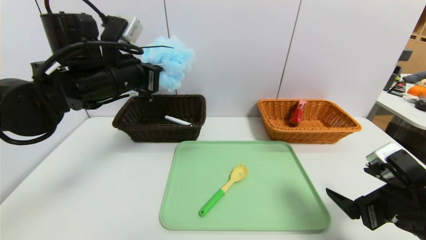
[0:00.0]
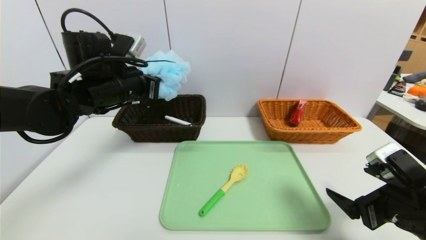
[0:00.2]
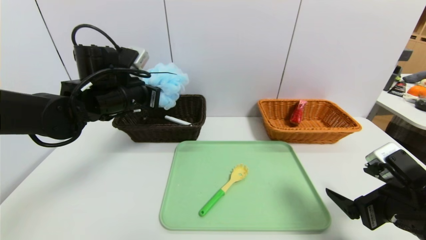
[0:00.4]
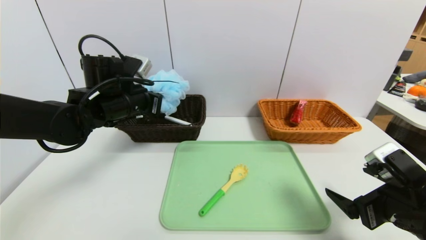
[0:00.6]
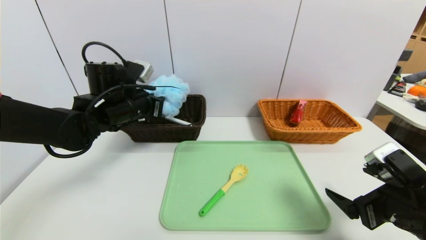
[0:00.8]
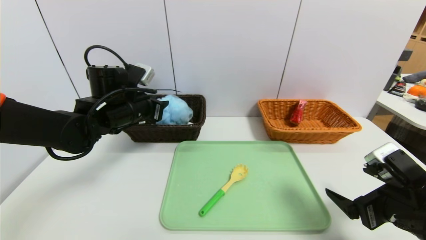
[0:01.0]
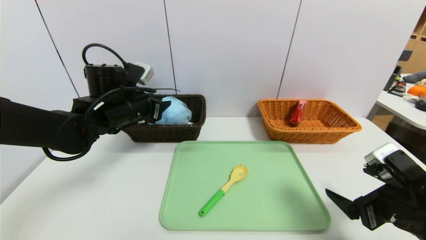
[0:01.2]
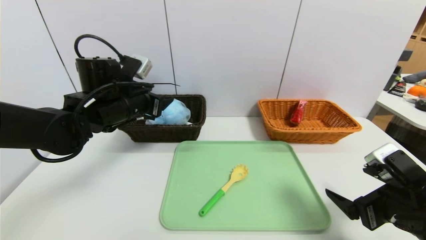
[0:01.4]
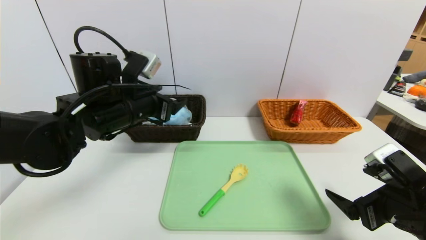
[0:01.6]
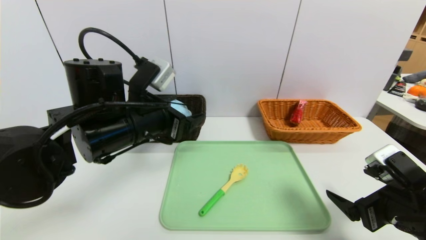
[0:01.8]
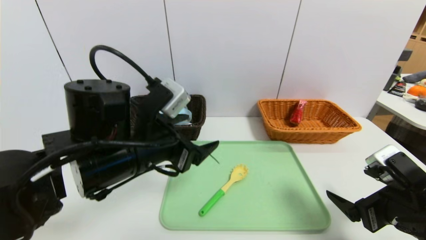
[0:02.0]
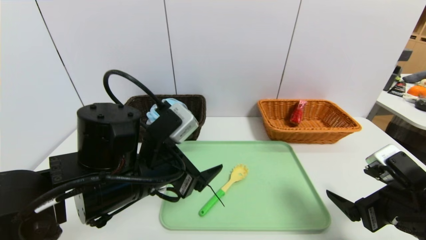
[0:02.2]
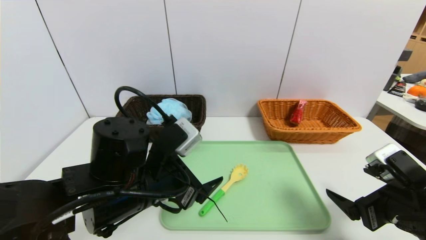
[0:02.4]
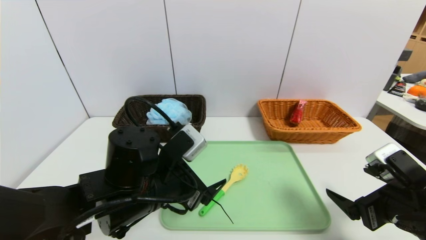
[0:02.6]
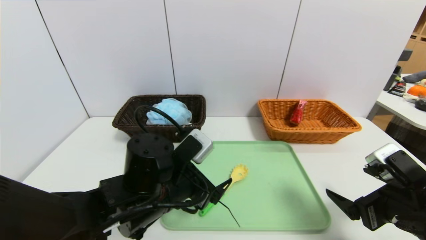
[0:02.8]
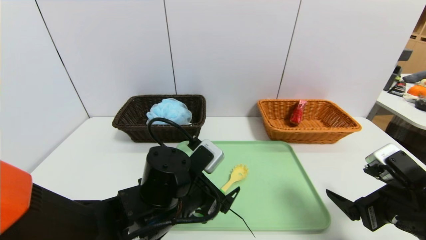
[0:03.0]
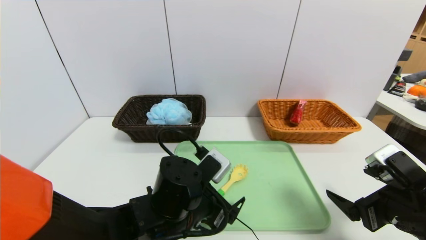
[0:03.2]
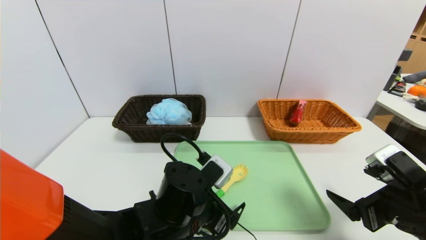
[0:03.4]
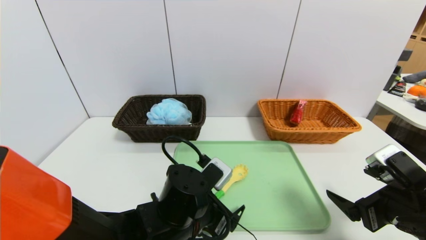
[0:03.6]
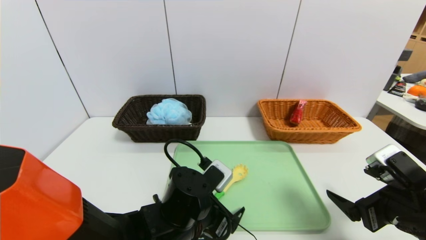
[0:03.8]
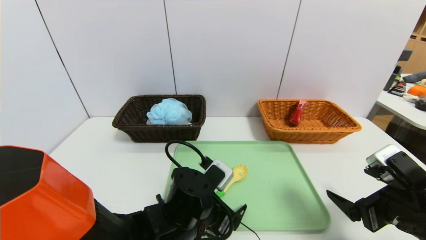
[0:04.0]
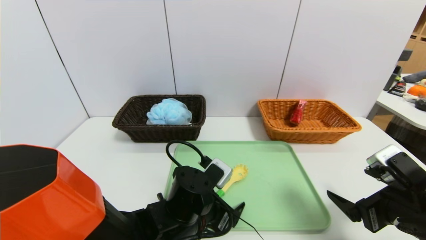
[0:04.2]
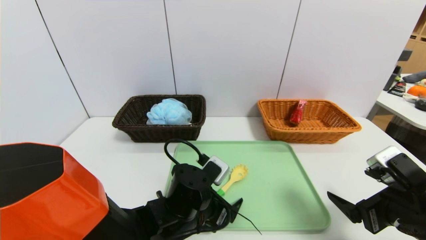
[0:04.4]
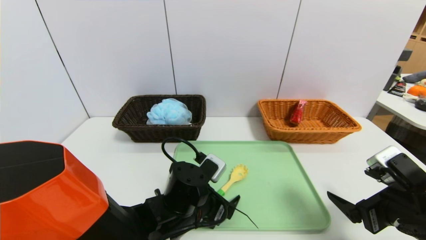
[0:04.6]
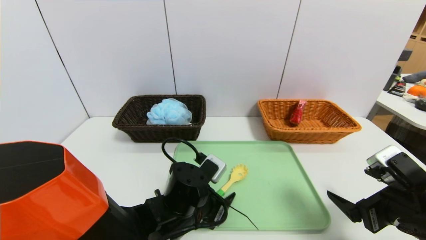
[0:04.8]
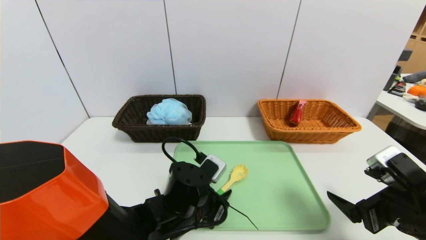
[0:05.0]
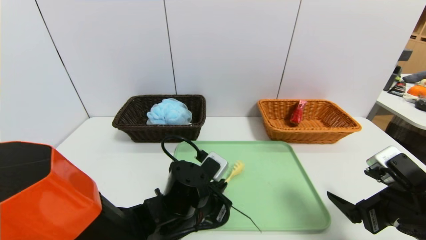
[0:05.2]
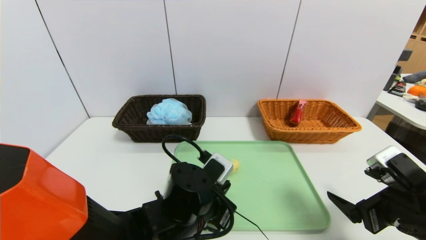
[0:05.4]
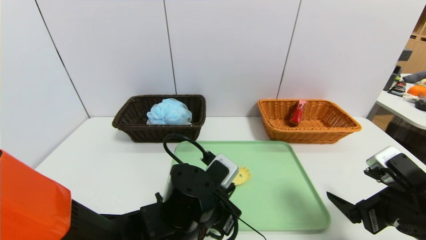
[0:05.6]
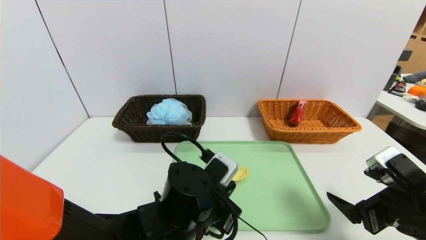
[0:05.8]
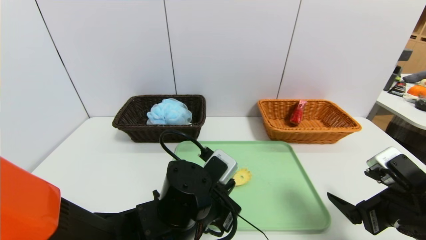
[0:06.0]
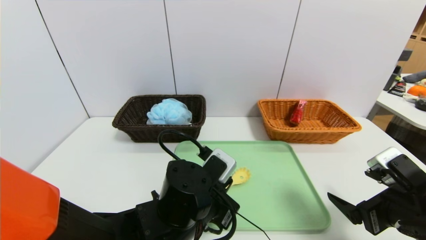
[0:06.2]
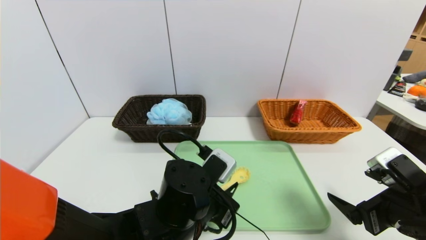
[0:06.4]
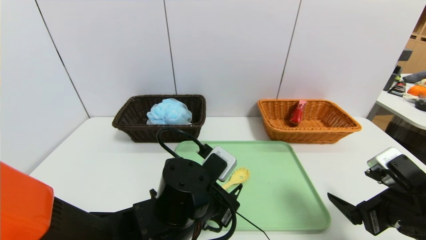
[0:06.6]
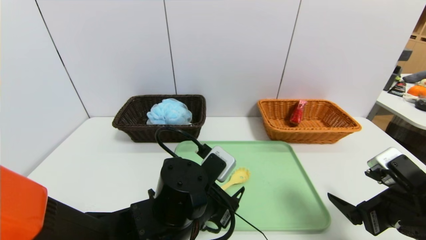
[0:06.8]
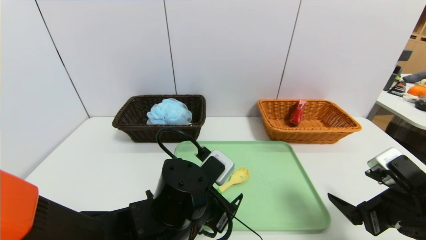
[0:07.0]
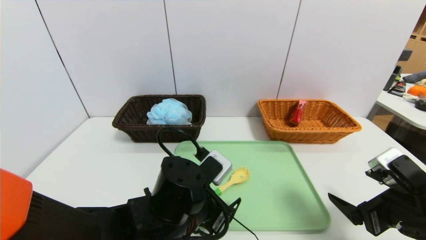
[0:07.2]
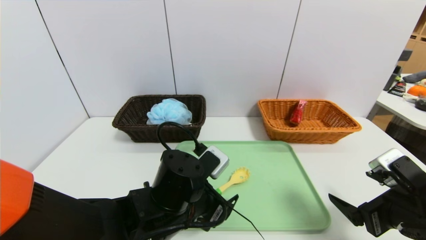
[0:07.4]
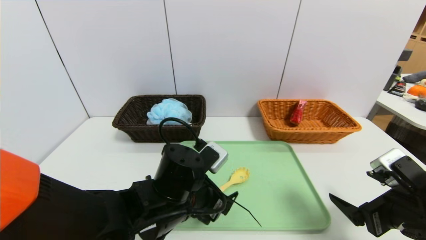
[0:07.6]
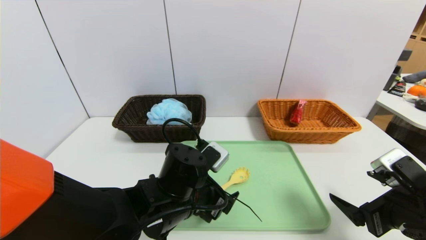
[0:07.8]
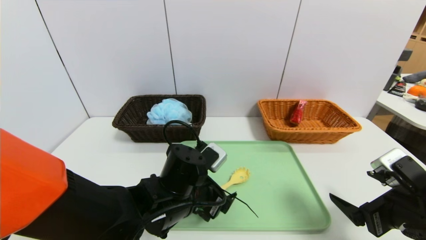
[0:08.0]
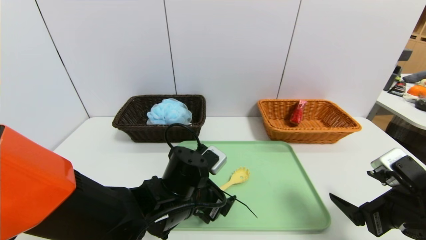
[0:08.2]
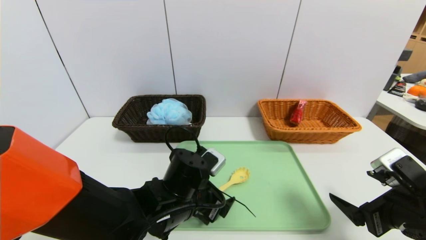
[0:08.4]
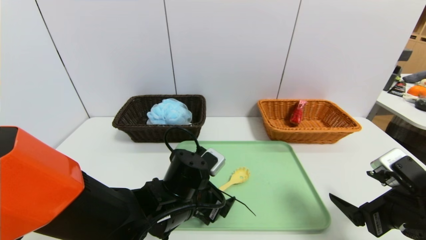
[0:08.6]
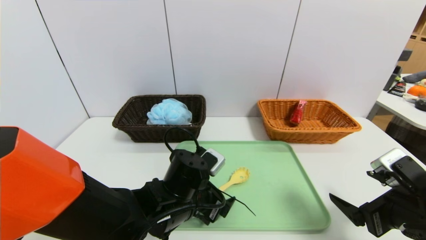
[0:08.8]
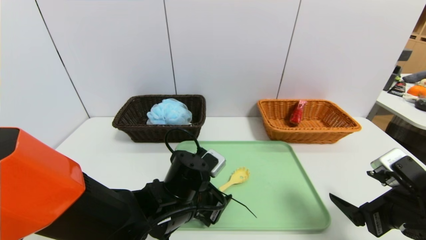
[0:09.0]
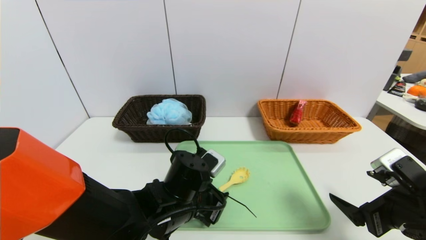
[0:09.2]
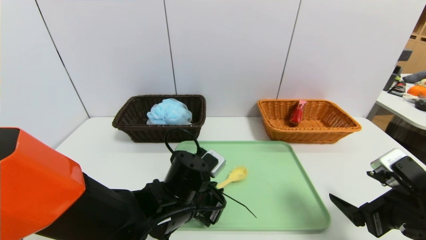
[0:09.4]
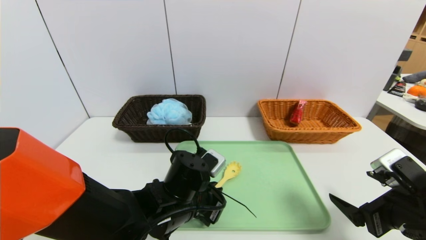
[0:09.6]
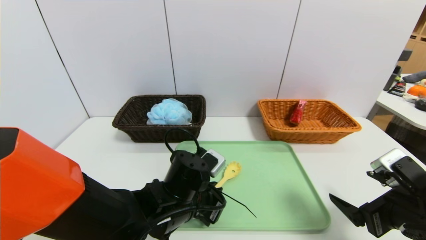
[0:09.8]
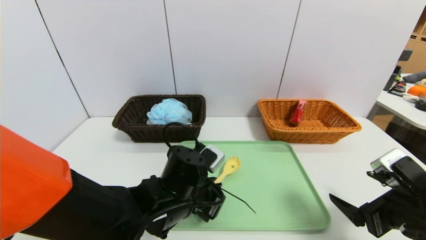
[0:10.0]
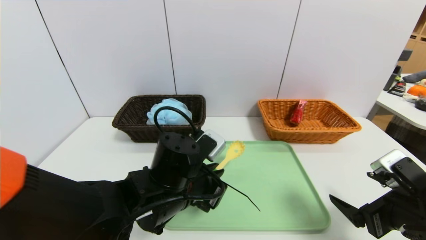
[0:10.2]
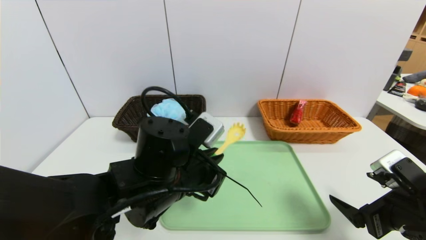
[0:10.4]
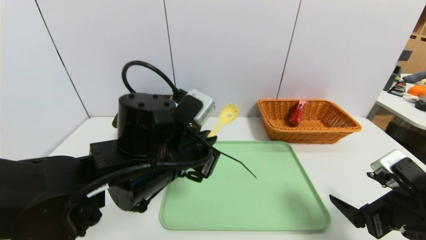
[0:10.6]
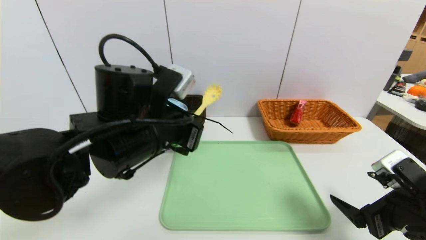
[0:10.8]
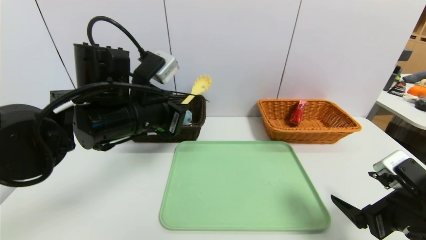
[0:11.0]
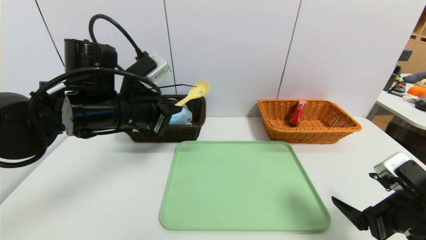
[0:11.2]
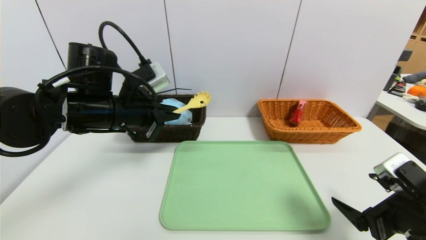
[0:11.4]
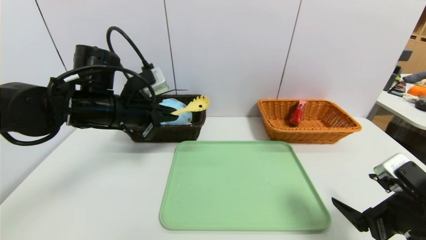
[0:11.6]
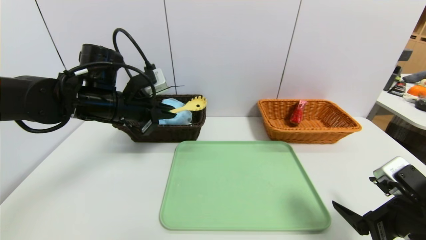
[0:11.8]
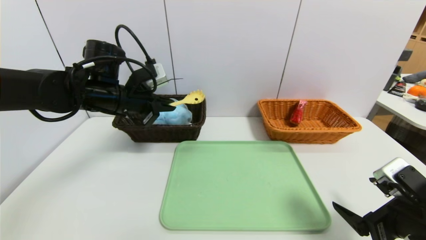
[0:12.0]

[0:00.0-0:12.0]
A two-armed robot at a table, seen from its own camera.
Task of the whole recording: place the food in the right basket with the right gripper, and place the non food items in the left basket with the left gripper.
0:00.0 to 0:01.6: The left gripper ends up approximately 5 cm from where it was, and opens its fingers.
0:01.6 to 0:03.0: The left gripper heads downward, to the right and backward, covering about 15 cm.
0:03.0 to 0:04.4: The left gripper moves some 5 cm.
0:04.4 to 0:06.0: The left gripper closes up.
0:06.0 to 0:07.6: The left gripper opens up.
0:07.6 to 0:09.0: The grippers stay close to where they were, moving slightly.
0:09.0 to 0:10.4: The left gripper moves upward, approximately 10 cm, and closes its fingers.
0:10.4 to 0:12.0: The left gripper moves forward, to the left and upward, approximately 20 cm.

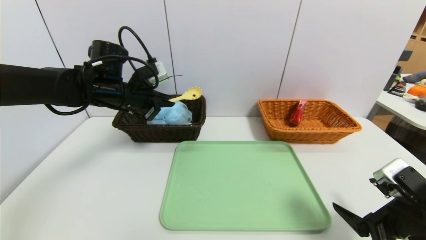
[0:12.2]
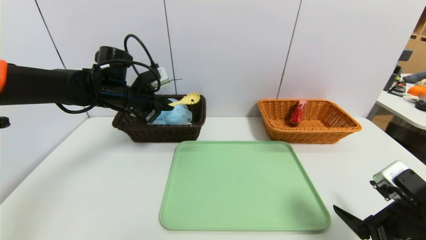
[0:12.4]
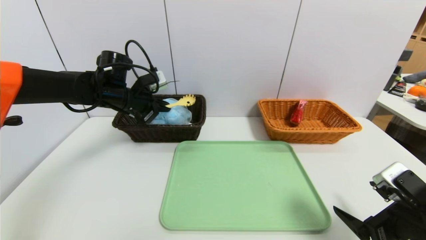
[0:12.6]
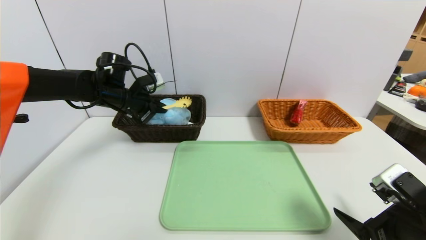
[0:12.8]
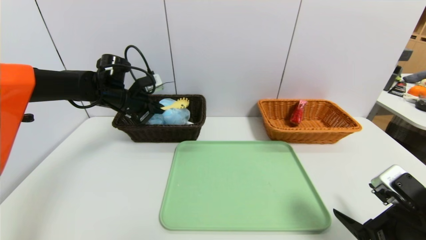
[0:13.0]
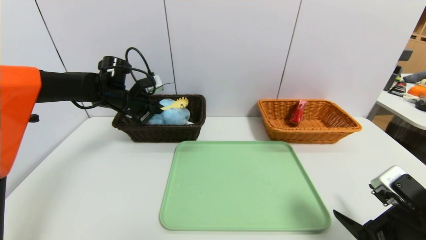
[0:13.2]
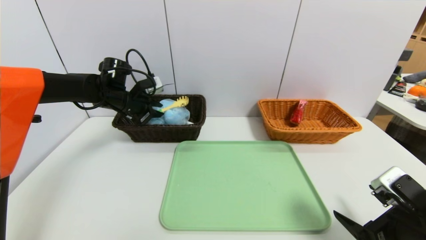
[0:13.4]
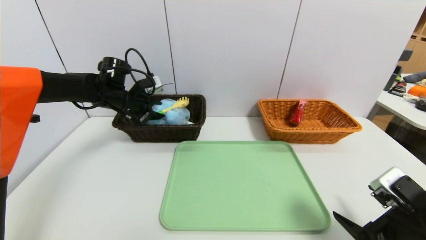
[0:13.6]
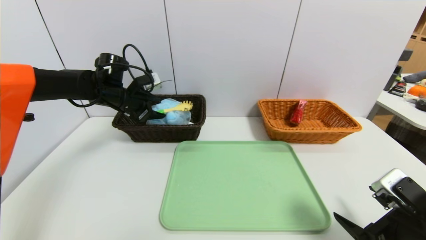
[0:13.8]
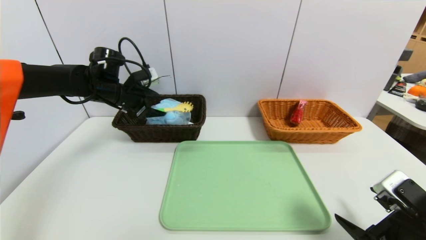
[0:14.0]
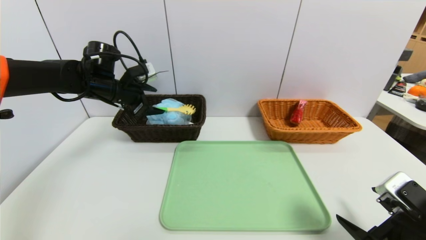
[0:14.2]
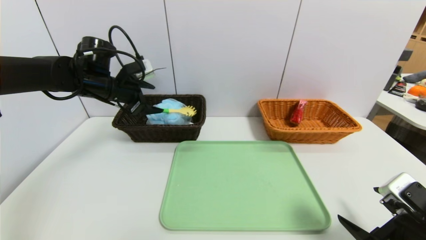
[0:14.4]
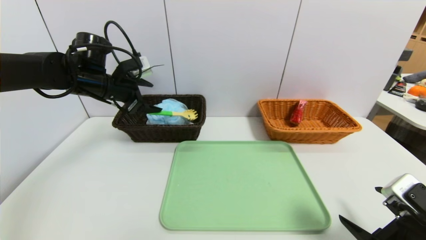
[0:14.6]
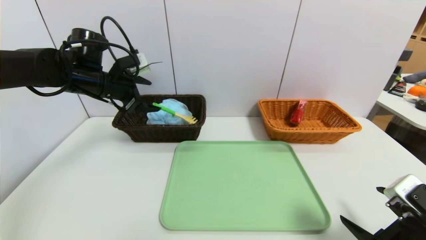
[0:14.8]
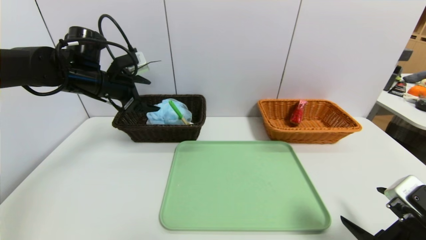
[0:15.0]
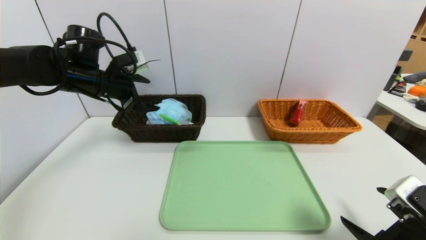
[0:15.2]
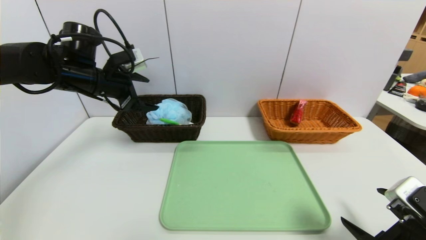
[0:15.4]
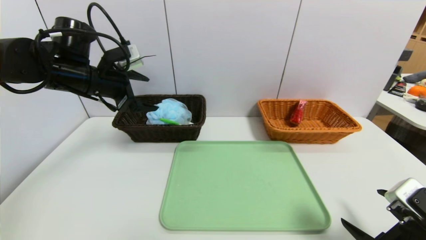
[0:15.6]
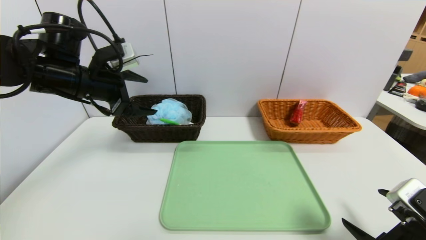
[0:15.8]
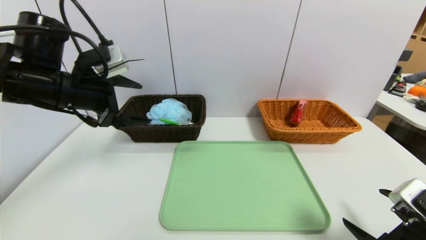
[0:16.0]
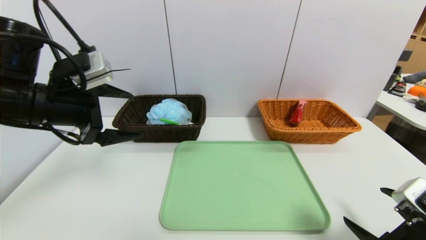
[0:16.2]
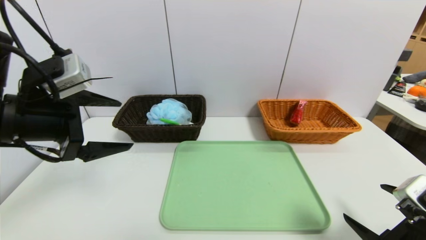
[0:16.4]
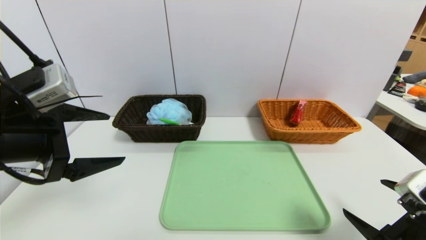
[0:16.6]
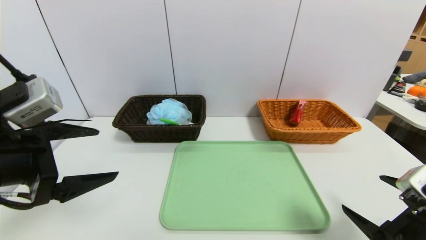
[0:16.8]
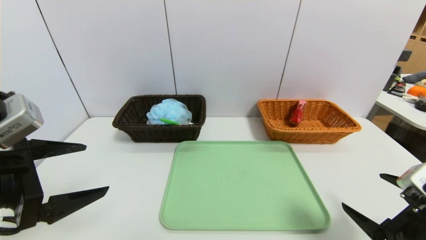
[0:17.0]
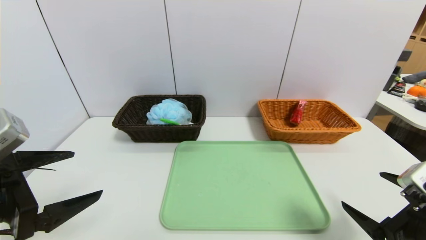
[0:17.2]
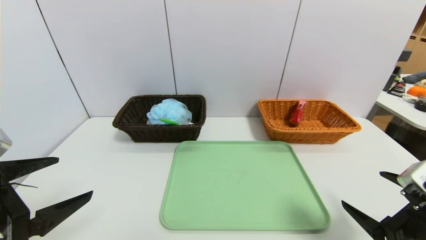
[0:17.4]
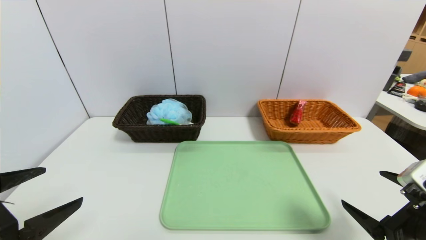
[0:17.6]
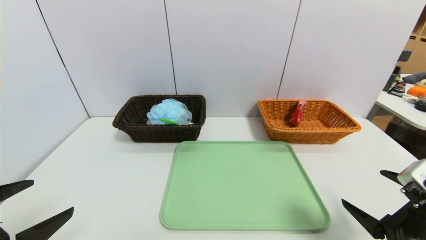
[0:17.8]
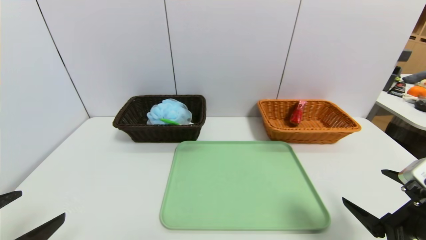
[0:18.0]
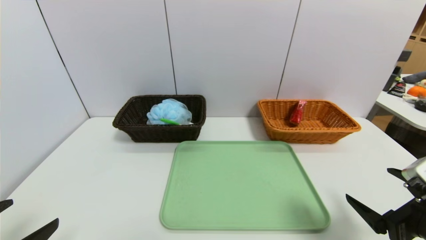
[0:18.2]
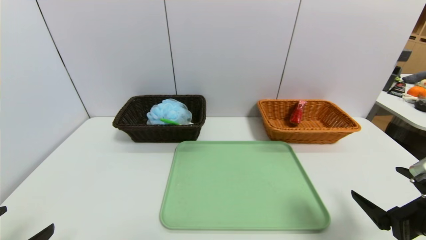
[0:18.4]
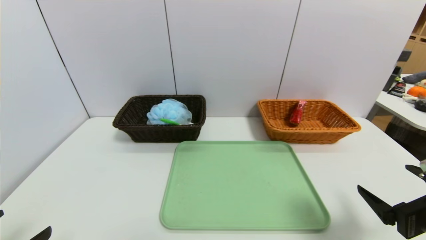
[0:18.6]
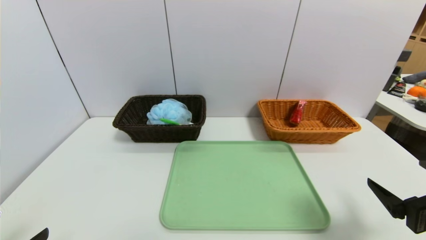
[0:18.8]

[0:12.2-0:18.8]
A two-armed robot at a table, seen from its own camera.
Task of the whole recording: place the food in the right basket with the right gripper, and place the non food items in the left basket with the left gripper.
Step, 0:12.2 to 0:14.8: Grasp the back scratcher and put it in the left basket.
0:12.2 to 0:13.8: The left gripper shifts about 5 cm forward, and opens up.
0:13.8 to 0:15.4: The left gripper travels backward and upward by some 10 cm.
0:15.4 to 0:17.2: The left gripper heads backward, covering approximately 25 cm.
0:17.2 to 0:18.8: The left gripper moves backward and downward, about 10 cm.
